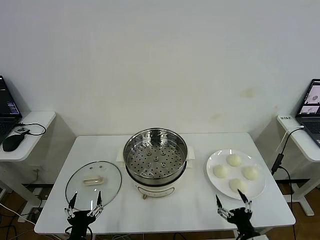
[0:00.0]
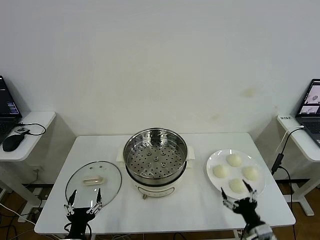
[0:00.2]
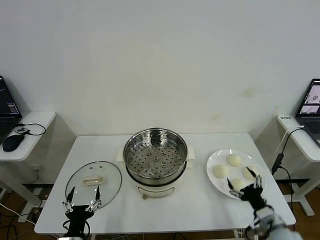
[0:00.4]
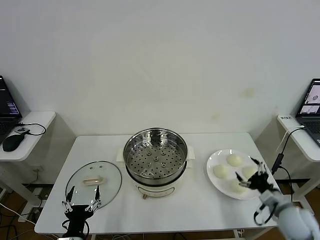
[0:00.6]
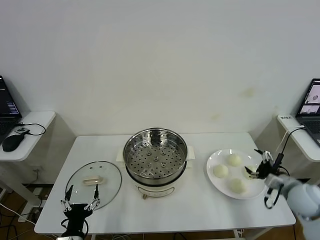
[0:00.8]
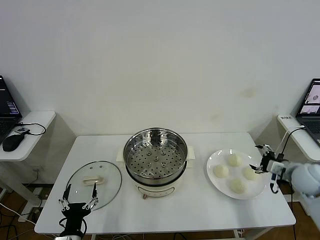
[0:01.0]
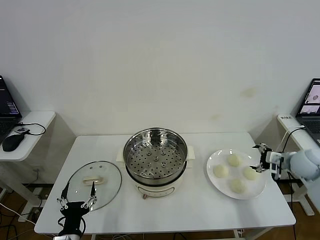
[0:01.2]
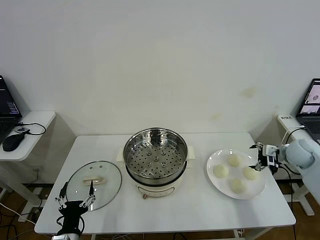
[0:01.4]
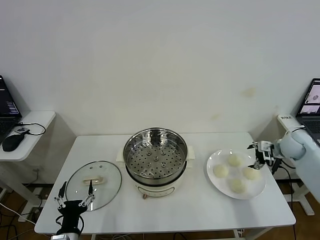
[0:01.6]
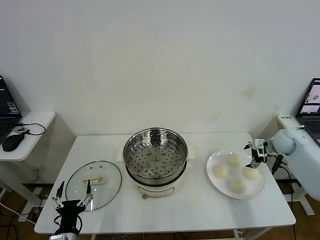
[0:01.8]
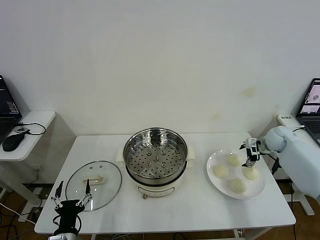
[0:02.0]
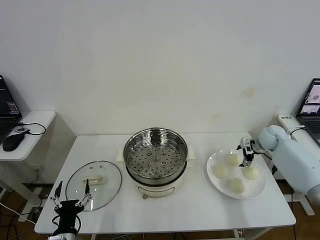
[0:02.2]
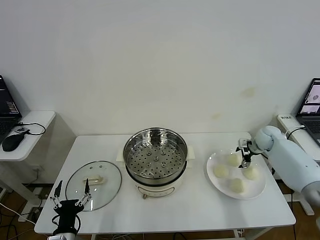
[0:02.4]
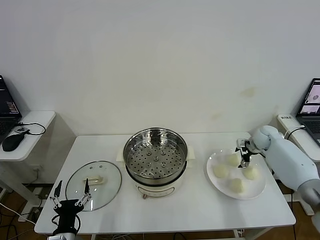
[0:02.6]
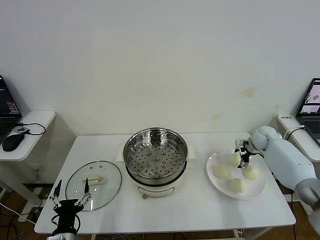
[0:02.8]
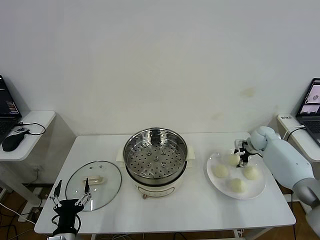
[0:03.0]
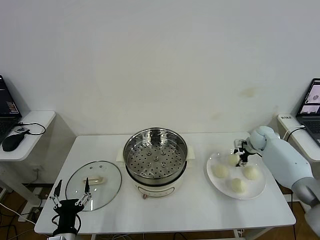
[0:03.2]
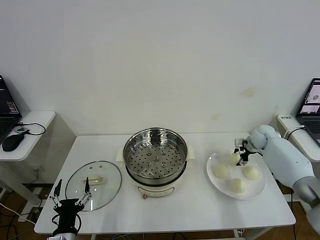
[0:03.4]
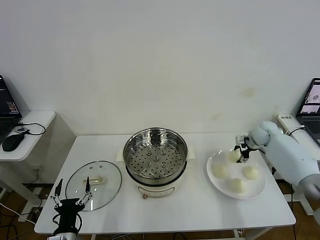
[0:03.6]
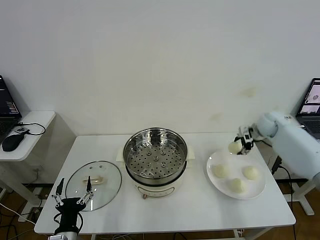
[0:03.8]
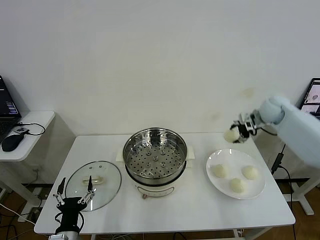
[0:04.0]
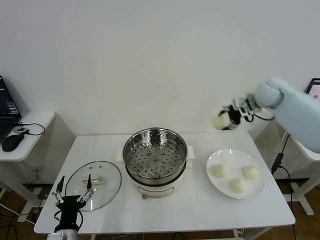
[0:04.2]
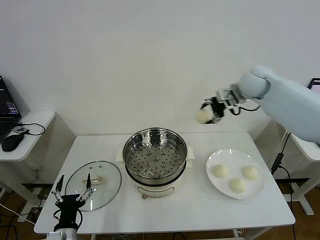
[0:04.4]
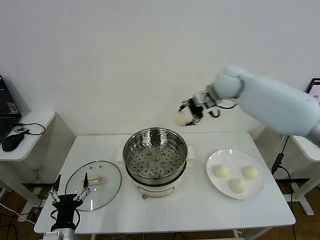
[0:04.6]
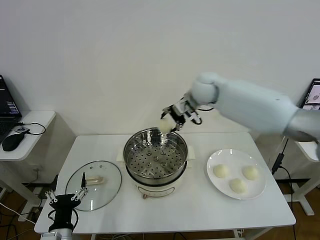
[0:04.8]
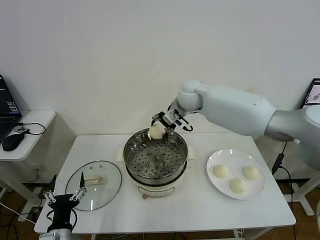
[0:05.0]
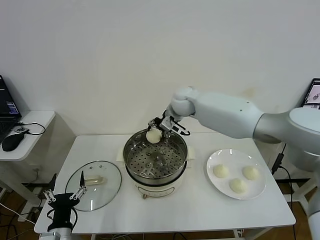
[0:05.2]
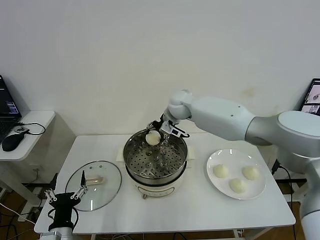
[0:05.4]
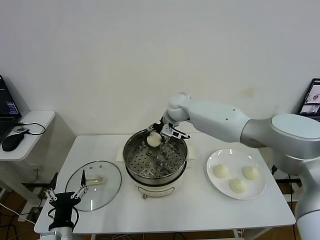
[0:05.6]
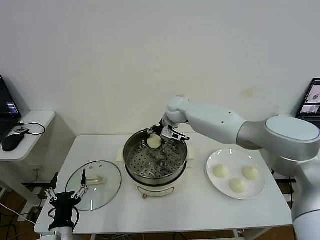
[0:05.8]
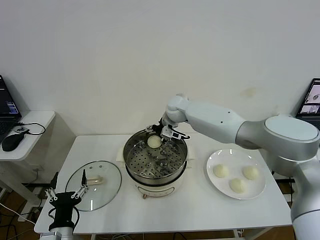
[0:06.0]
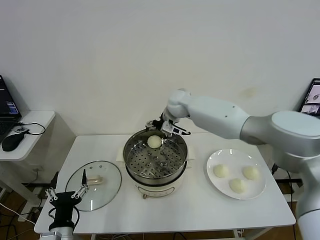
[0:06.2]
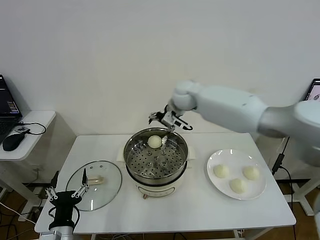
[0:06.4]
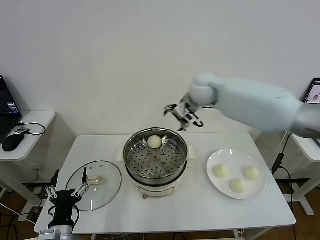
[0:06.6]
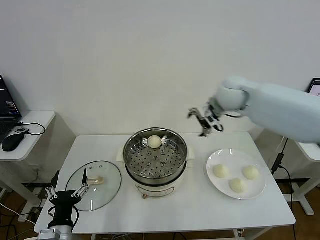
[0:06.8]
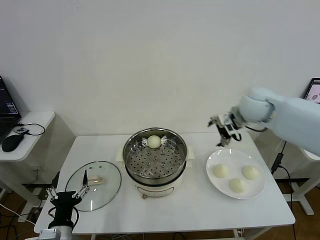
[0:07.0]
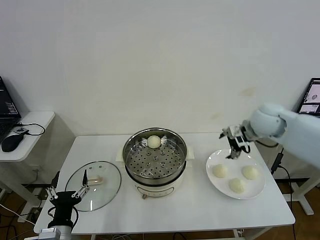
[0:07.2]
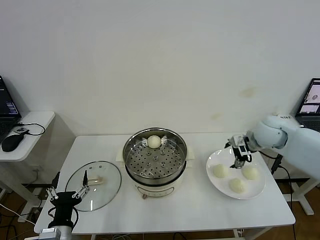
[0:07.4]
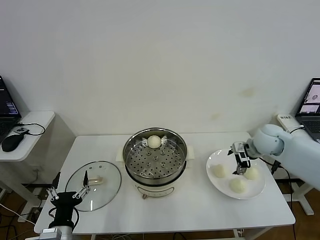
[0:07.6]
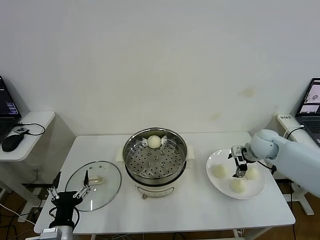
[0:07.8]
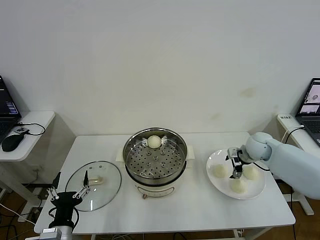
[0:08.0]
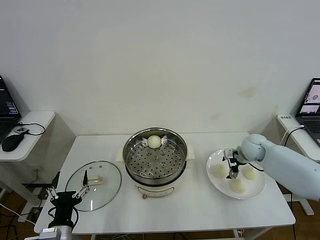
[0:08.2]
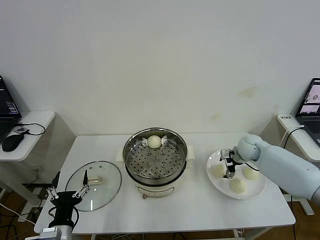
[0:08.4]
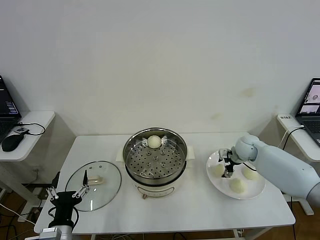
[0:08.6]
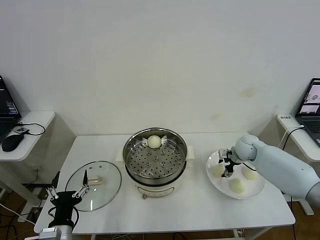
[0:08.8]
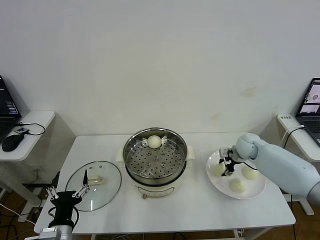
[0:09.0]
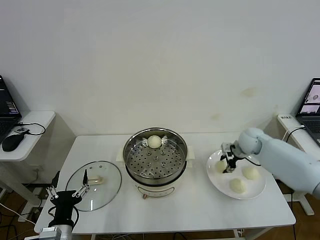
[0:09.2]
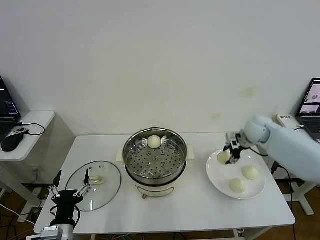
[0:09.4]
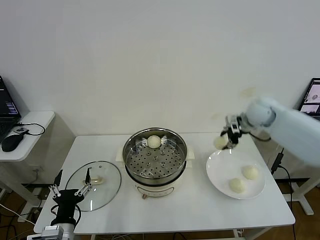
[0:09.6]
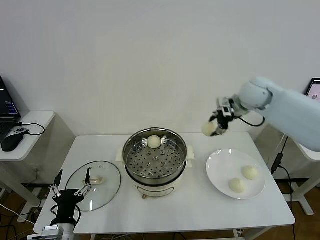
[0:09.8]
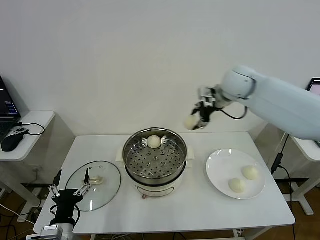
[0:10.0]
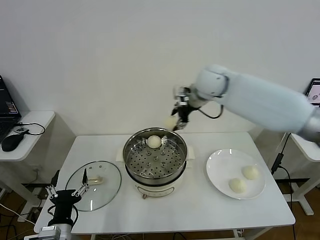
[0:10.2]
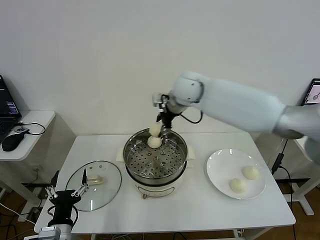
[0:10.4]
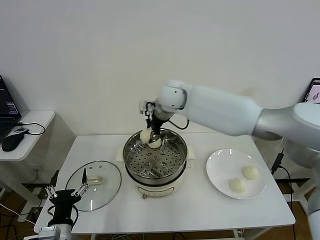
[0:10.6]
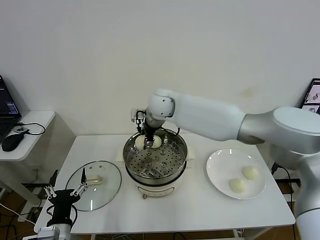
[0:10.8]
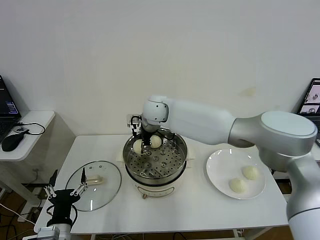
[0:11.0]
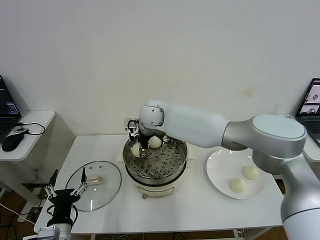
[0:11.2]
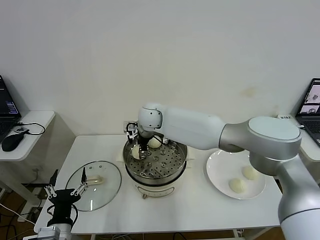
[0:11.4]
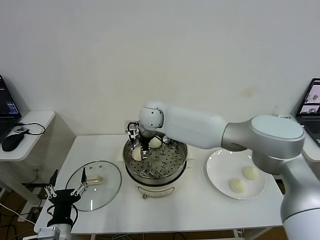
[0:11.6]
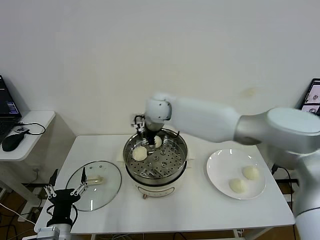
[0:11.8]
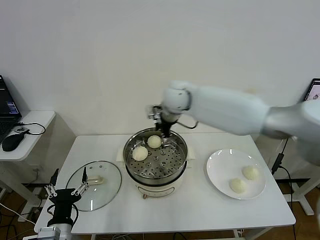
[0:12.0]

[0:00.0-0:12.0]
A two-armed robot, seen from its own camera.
Step, 0:00.0 to 0:03.2: Grasp the baozi in the plate with right gripper.
Step, 0:03.4 to 0:06.0: Place the baozi on the steamer with right gripper.
Step, 0:06.2 to 0:09.0: Grasp the baozi in the plate with right gripper.
Step, 0:09.2 to 0:11.8: Place the baozi on the steamer with right gripper.
0:01.6 to 0:03.0: The right gripper moves forward, downward and to the left, approximately 10 cm, and closes.
0:03.0 to 0:04.4: The right gripper is displaced upward and to the left by approximately 30 cm.
0:04.4 to 0:06.0: The right gripper travels to the left and downward by about 20 cm, and opens up.
0:06.0 to 0:07.6: The right gripper moves to the right and backward, approximately 30 cm.
0:07.6 to 0:09.0: The right gripper shifts approximately 5 cm downward, and closes its fingers.
0:09.0 to 0:10.4: The right gripper travels to the left and upward by about 35 cm.
0:10.4 to 0:12.0: The right gripper goes to the left and returns, about 10 cm each way, and opens.

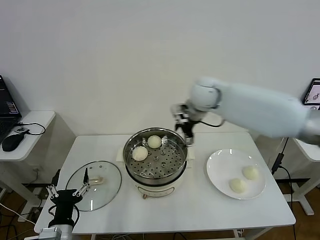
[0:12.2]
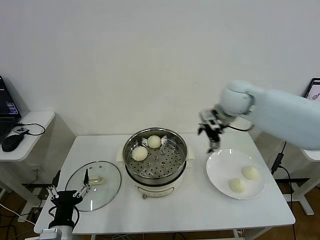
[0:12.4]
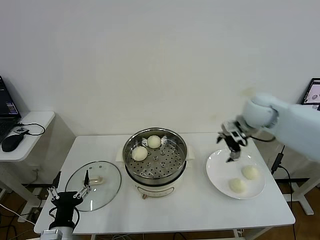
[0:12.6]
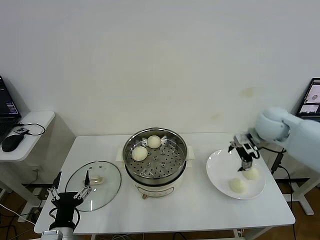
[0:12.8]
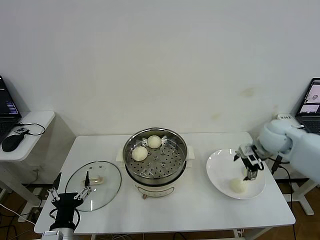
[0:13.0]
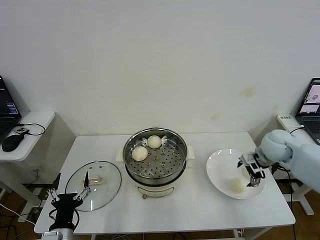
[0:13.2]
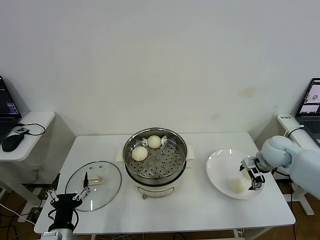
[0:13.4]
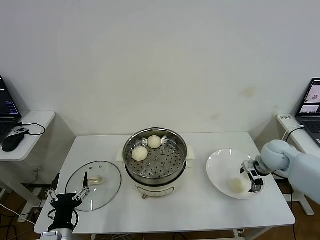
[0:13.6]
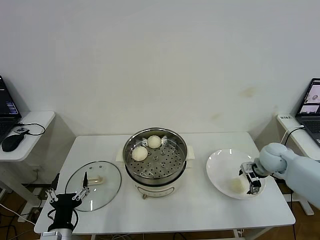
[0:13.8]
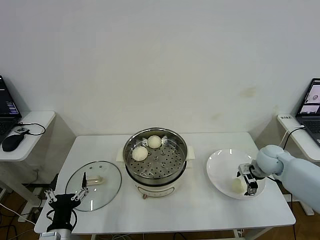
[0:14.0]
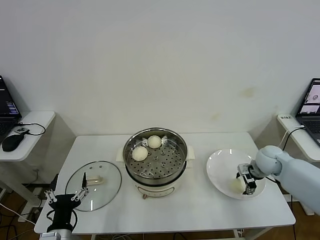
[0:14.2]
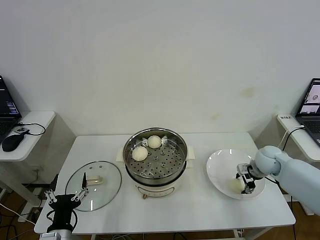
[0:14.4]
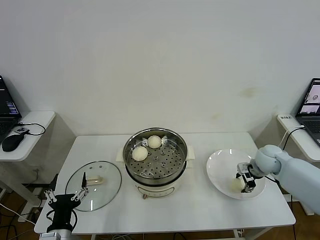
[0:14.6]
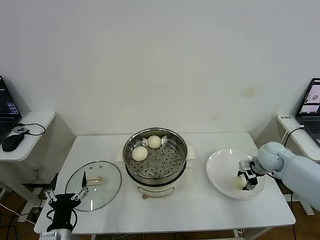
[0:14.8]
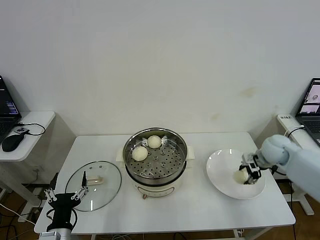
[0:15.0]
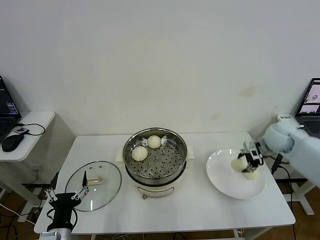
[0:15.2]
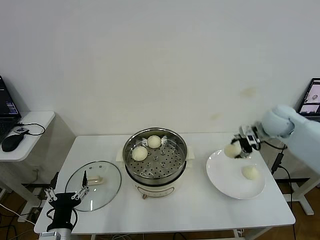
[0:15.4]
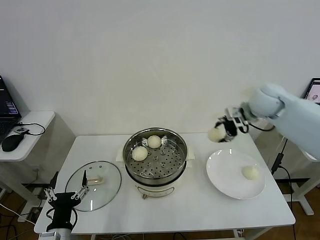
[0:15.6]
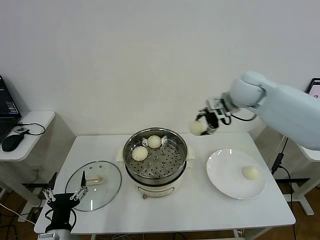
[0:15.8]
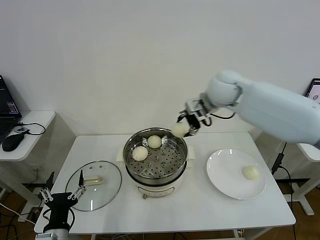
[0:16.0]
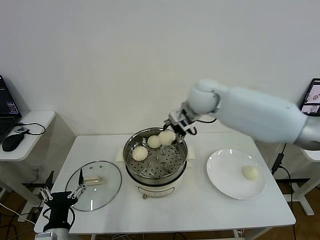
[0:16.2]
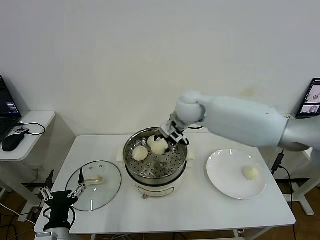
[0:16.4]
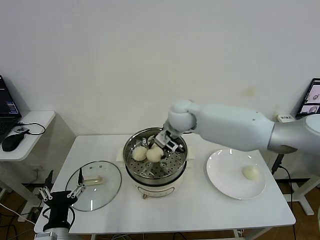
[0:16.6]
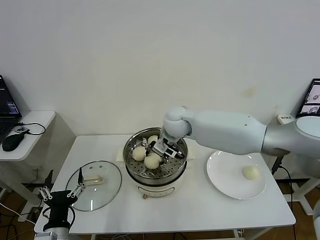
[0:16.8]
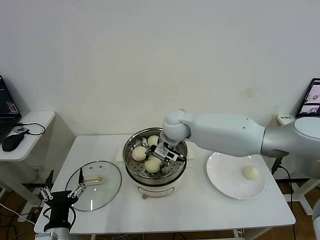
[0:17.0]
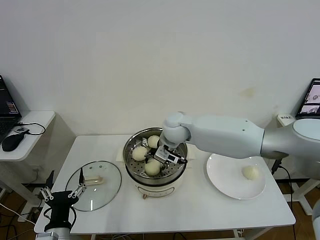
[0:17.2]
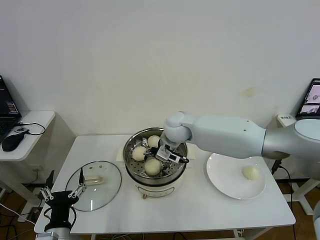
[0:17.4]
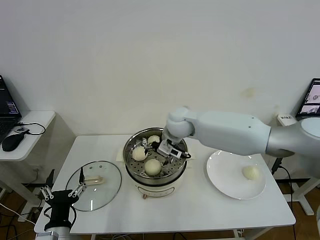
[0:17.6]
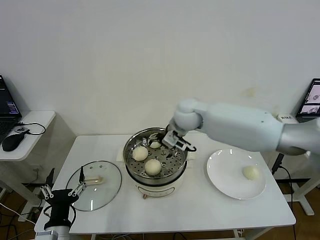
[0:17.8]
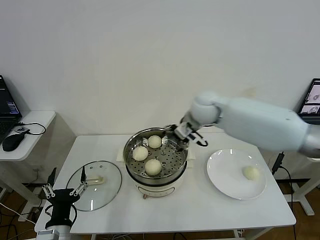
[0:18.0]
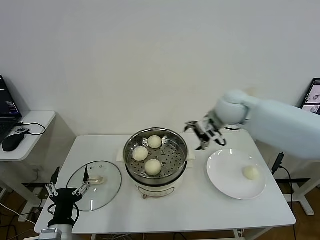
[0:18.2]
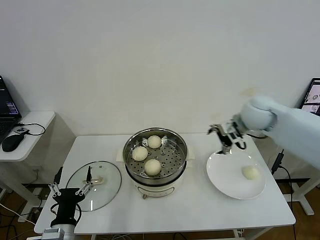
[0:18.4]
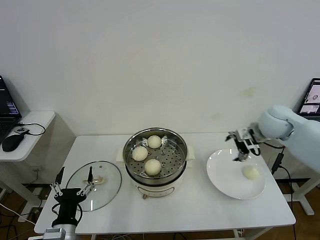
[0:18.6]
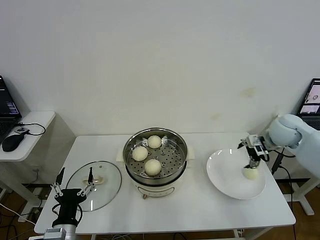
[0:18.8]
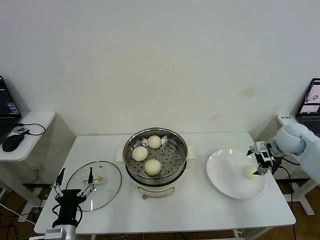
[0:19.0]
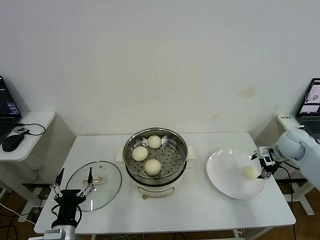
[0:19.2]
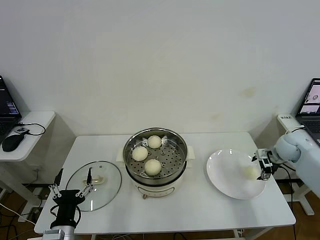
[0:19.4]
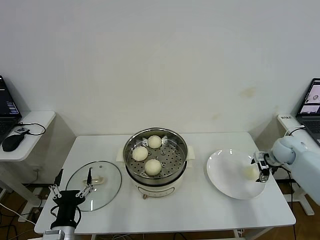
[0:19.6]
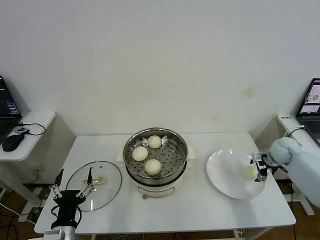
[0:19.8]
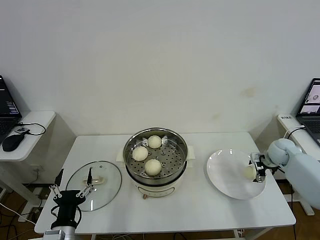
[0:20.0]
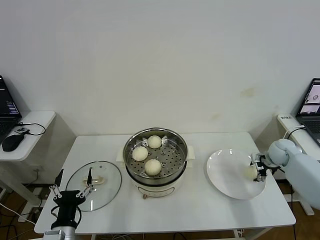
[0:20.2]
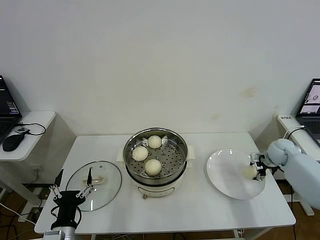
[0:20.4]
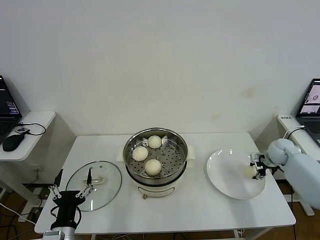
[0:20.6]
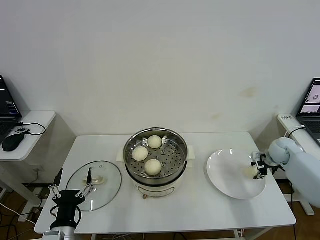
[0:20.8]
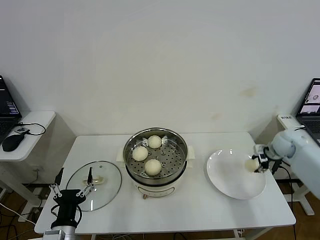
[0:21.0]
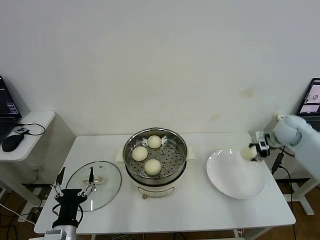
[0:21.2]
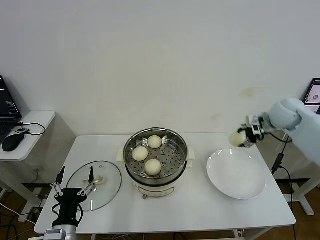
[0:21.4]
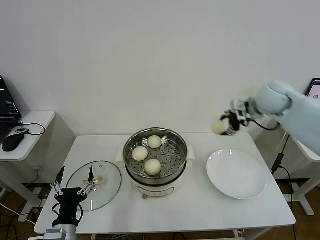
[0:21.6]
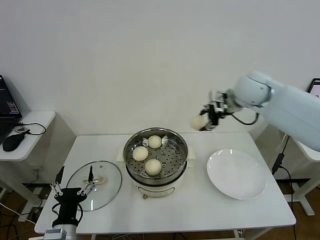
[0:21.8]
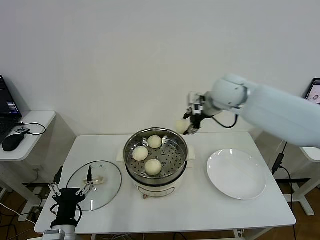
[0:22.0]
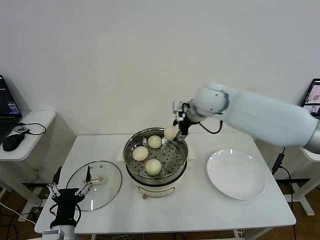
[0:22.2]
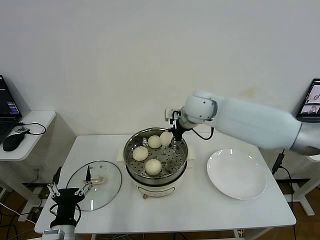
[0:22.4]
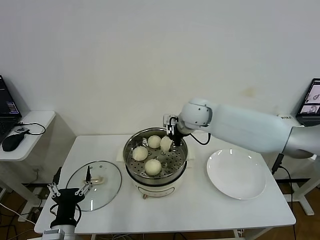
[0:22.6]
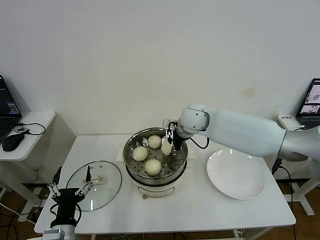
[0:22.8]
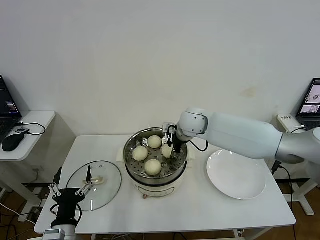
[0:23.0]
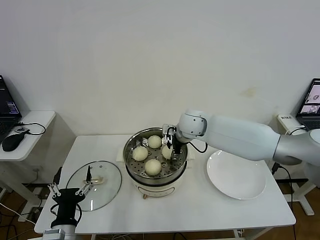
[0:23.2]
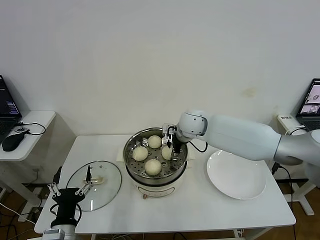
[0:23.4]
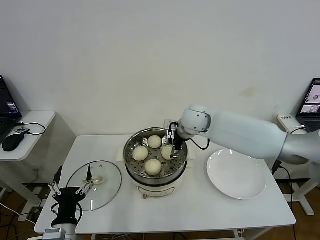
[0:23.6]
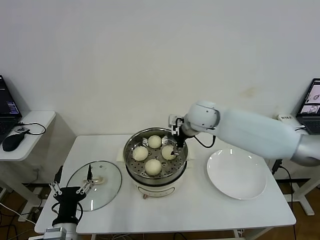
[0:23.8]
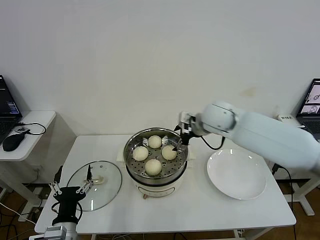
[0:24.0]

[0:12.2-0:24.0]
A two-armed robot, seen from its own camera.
Step, 0:12.2 to 0:14.4: Grasp the baozi in the plate with right gripper.
Step, 0:14.6 to 0:17.4: Place the baozi on the steamer with right gripper.
Step, 0:17.6 to 0:20.6: Grasp the baozi in the plate with right gripper.
Step, 0:20.8 to 0:23.4: Place the baozi on the steamer with right gripper.
0:12.2 to 0:13.6: The right gripper shifts approximately 30 cm to the right and downward.
0:13.6 to 0:15.2: The right gripper goes some 10 cm upward, and closes its fingers.
0:15.2 to 0:16.6: The right gripper moves to the left, roughly 35 cm.
0:16.6 to 0:18.2: The right gripper goes roughly 15 cm to the right, and opens its fingers.
0:18.2 to 0:19.6: The right gripper travels to the right and downward by about 30 cm.
0:19.6 to 0:21.0: The right gripper closes.
0:21.0 to 0:22.6: The right gripper travels to the left by roughly 35 cm.
0:22.6 to 0:24.0: The right gripper travels to the right by roughly 5 cm, and opens up.
